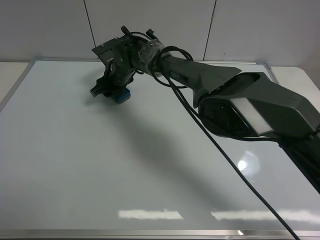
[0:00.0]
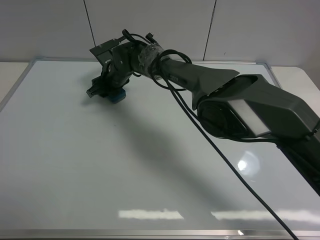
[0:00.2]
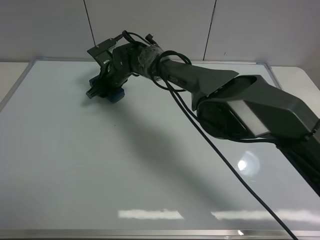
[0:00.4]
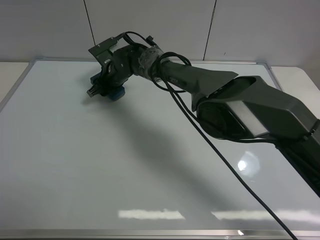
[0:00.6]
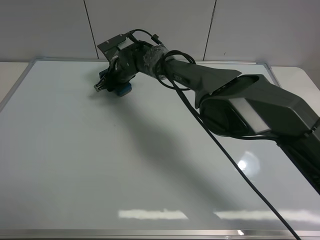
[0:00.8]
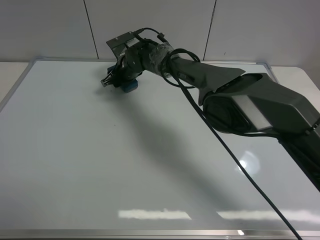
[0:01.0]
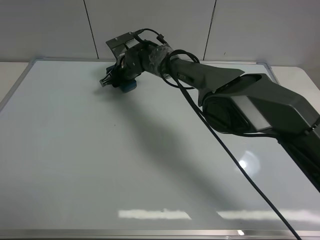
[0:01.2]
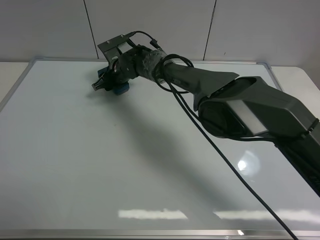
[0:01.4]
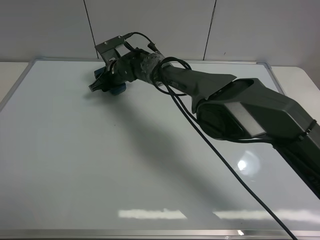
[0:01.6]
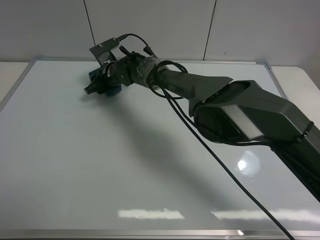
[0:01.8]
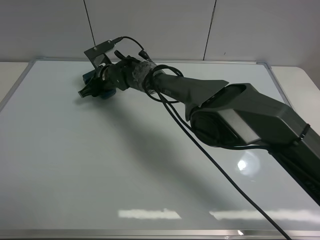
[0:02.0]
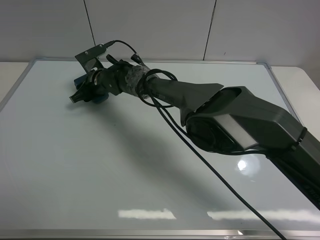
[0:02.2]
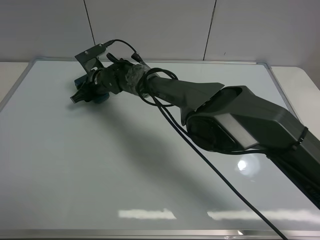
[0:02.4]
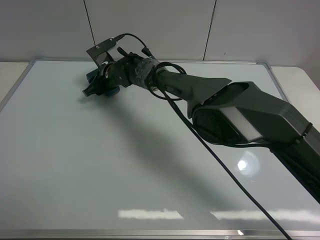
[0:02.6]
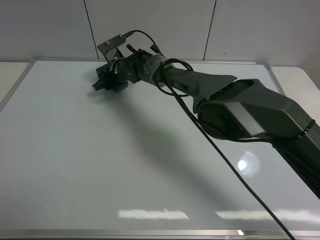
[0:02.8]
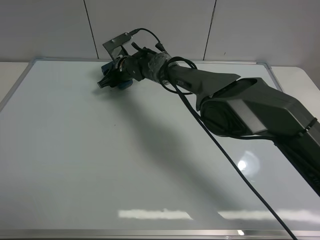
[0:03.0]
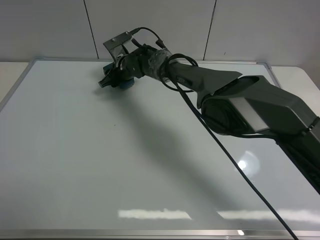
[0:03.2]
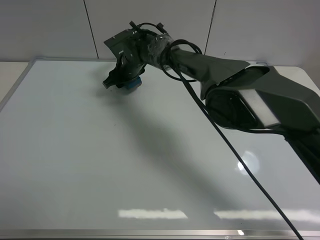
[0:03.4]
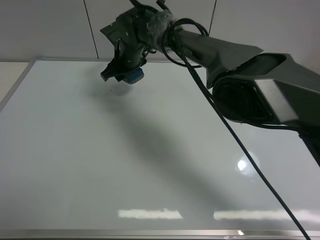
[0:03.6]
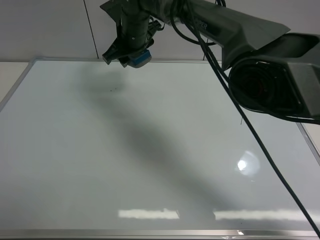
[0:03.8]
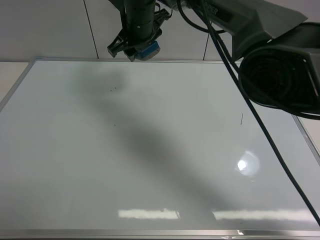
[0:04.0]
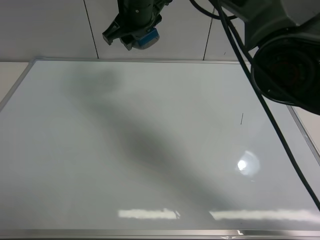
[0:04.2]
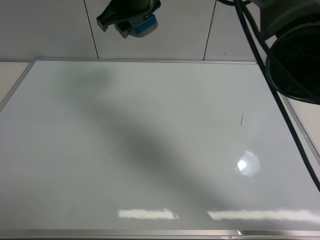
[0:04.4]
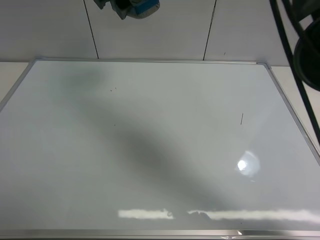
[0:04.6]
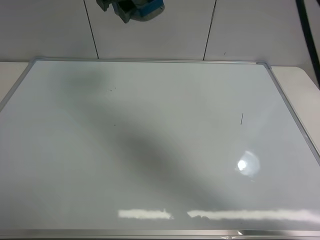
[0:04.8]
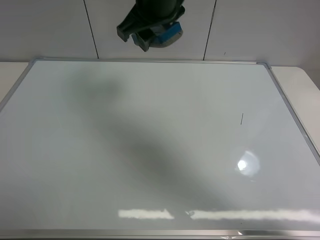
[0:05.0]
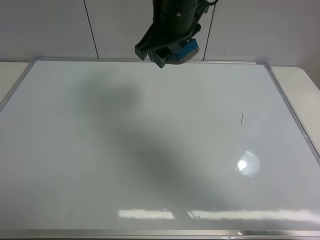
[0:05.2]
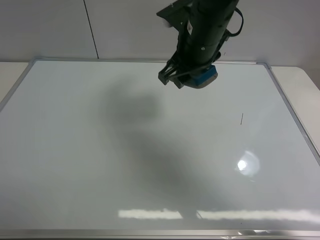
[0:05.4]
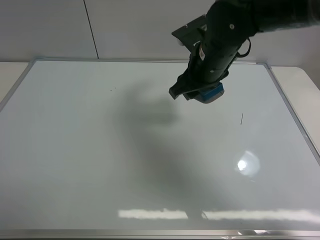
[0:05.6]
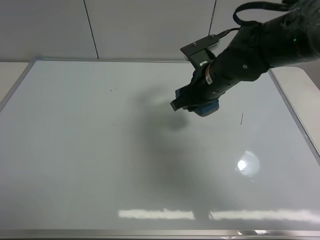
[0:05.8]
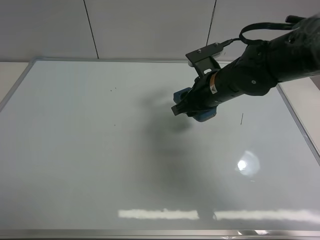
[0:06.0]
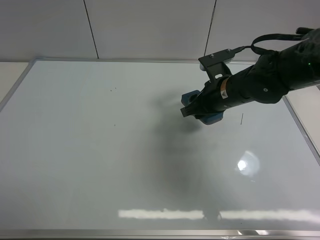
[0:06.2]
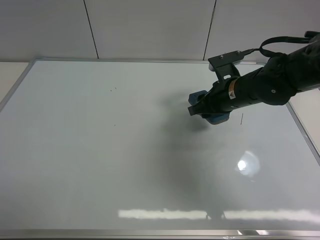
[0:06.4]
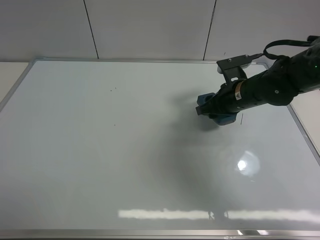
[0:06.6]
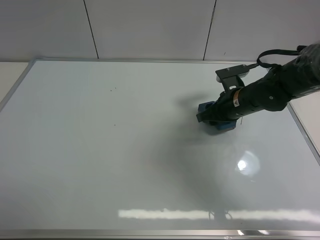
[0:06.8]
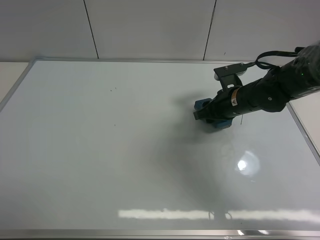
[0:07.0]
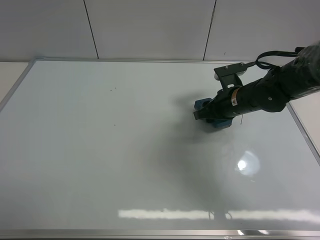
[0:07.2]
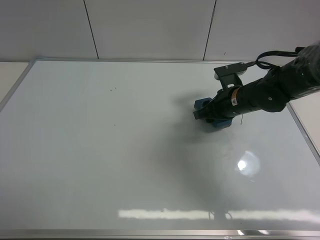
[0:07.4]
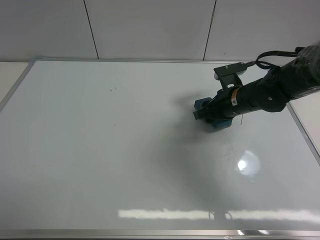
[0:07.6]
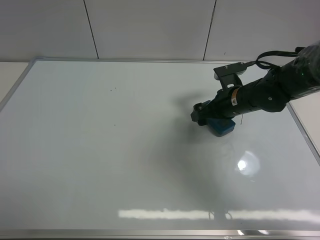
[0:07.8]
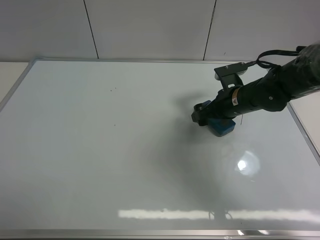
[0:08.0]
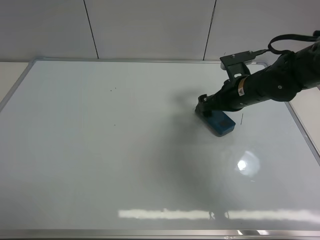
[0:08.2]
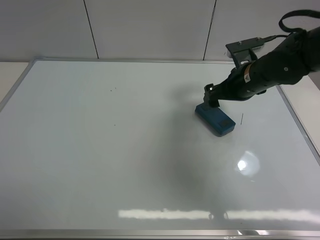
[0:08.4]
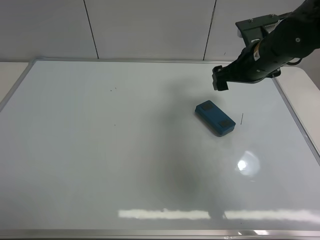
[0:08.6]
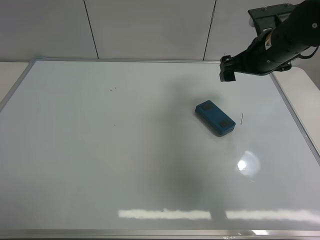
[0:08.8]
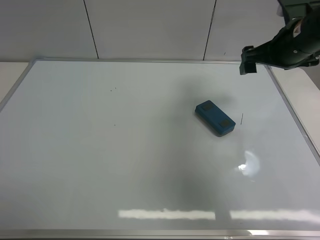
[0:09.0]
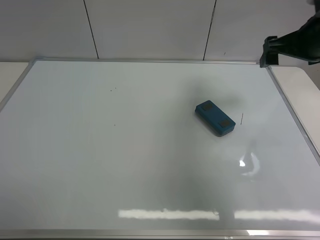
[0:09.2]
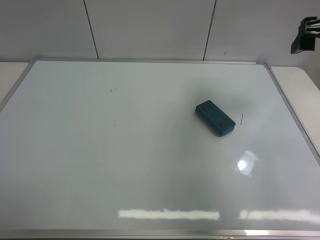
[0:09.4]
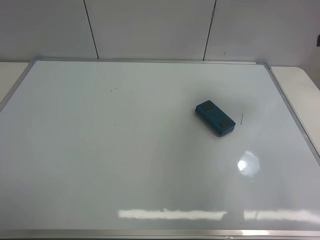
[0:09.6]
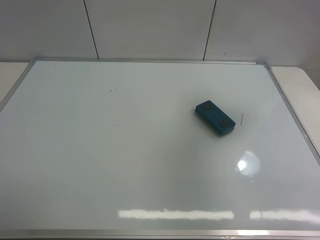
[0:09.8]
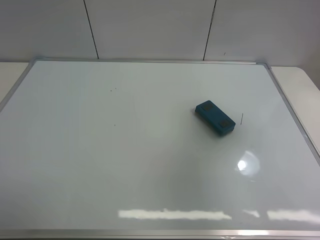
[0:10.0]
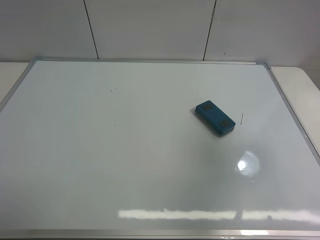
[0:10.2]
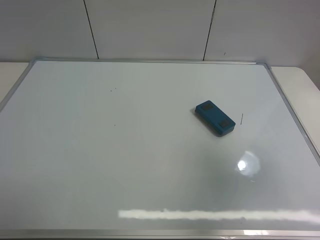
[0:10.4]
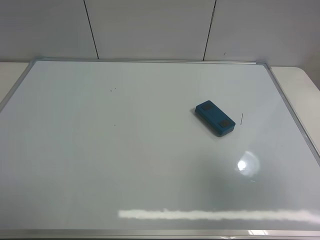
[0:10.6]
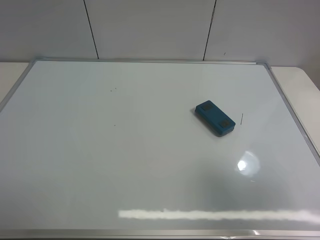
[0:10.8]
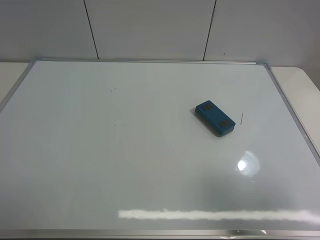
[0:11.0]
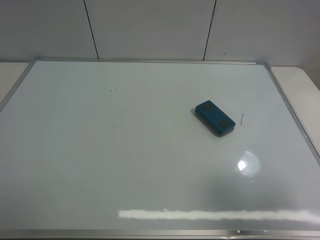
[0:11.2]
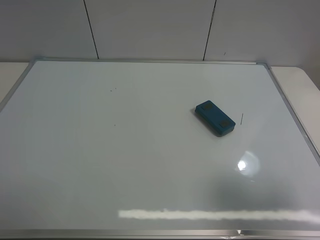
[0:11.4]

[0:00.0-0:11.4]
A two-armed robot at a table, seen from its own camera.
Task of the whole recording: use the right gripper to pick up the board eraser, wipe the notes on the whiteboard clean, and then put them back in place.
Step, 0:00.0 to 0:03.0: Wipe off the writing on the board with right gripper.
Step, 0:03.2 to 0:08.0: Place the board eraser on the right side of board with right gripper.
0:00.0 to 0:02.8: The grippers move only a little.
0:02.8 to 0:04.2: The right gripper moves upward, about 20 cm.
0:04.2 to 0:05.6: The right gripper heads to the right, backward and downward, covering some 20 cm.
0:05.6 to 0:07.2: The right gripper moves downward and to the right, approximately 15 cm.
0:07.2 to 0:08.6: The right gripper shifts roughly 10 cm upward, and opens up.
0:08.6 to 0:10.0: The right gripper heads backward, upward and to the right, covering some 30 cm.
0:10.0 to 0:11.4: The right gripper is displaced backward and downward by roughly 15 cm.

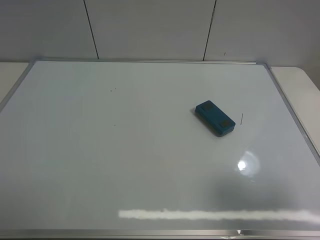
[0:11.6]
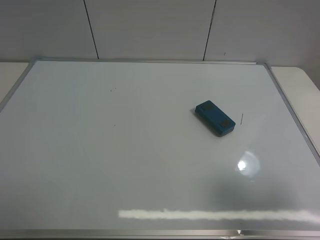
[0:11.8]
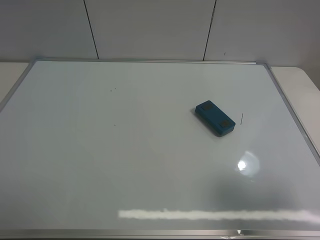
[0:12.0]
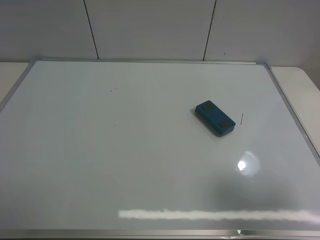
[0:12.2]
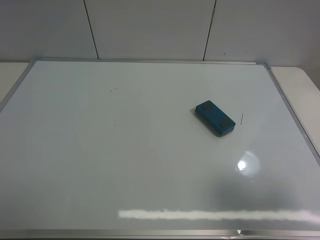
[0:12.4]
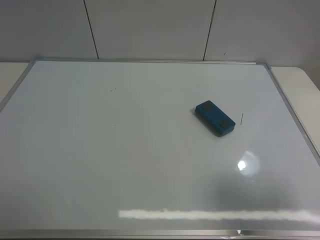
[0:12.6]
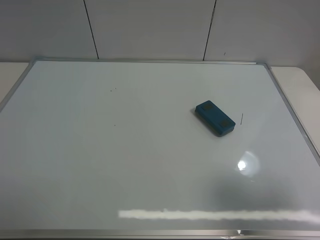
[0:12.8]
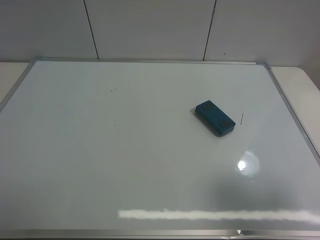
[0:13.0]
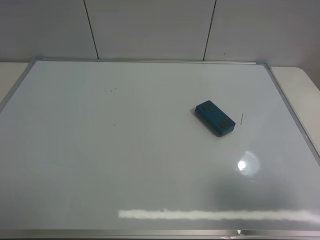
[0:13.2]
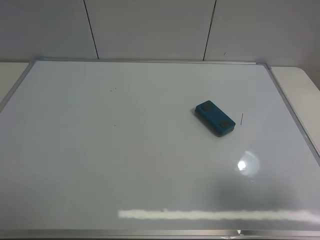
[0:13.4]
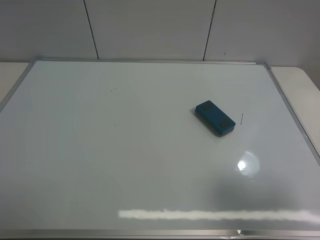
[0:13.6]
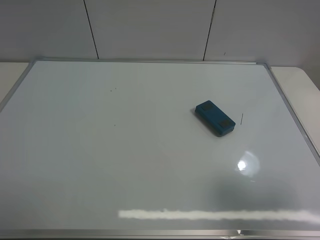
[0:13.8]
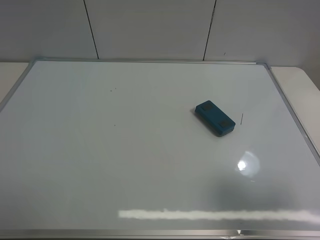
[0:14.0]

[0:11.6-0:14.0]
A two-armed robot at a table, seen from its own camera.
Task of the whole recording: use the right gripper to pick up the board eraser, wipe the notes on the whiteboard clean, and then put them back in place.
0:11.6 to 0:14.0: Both grippers stay put.
